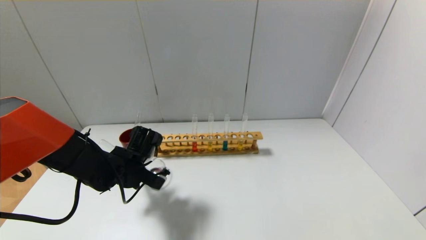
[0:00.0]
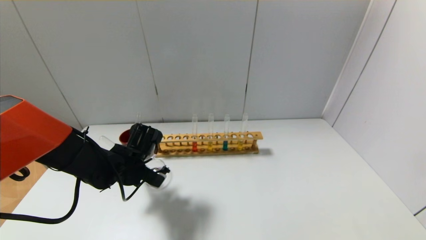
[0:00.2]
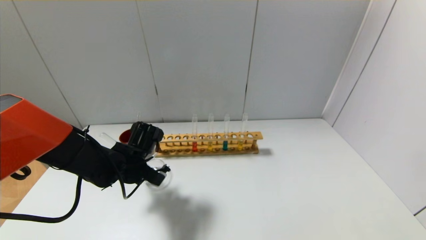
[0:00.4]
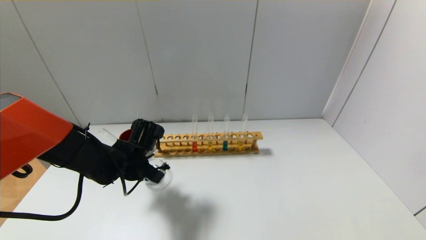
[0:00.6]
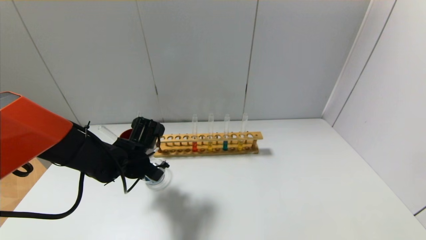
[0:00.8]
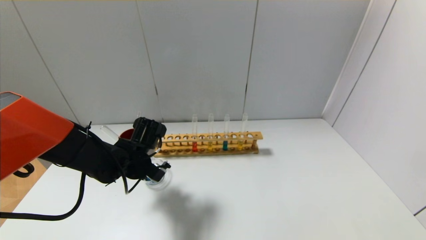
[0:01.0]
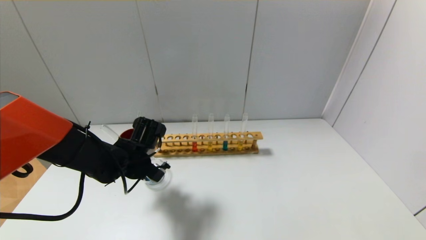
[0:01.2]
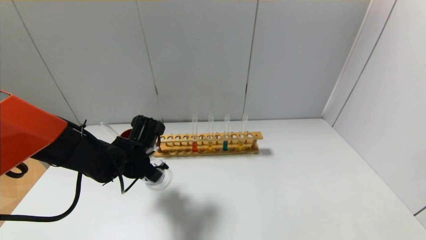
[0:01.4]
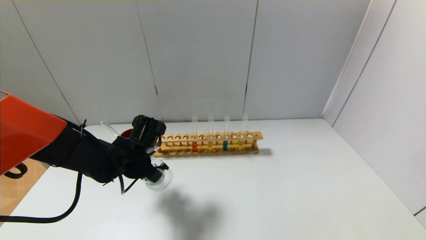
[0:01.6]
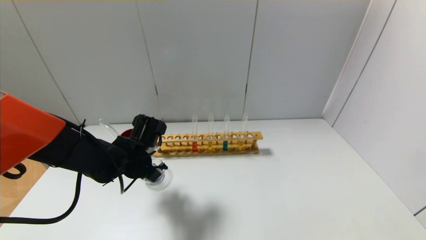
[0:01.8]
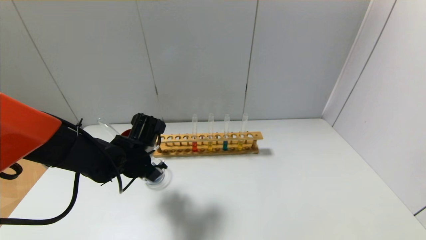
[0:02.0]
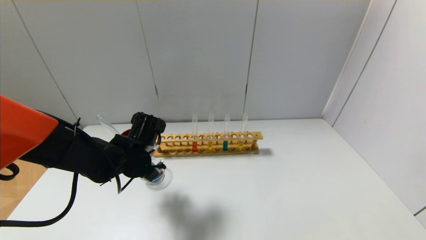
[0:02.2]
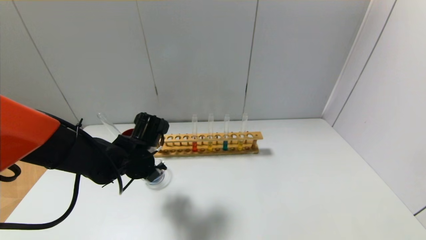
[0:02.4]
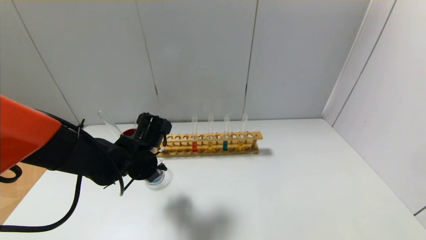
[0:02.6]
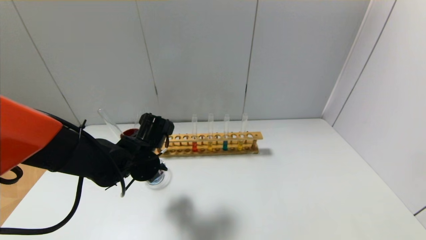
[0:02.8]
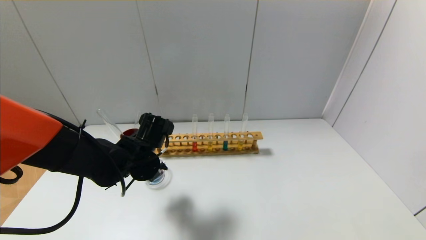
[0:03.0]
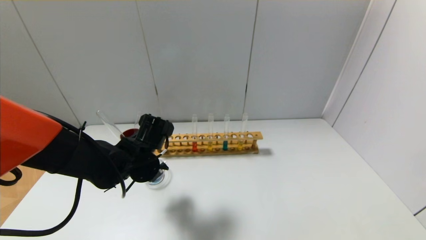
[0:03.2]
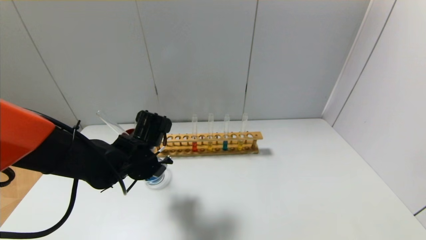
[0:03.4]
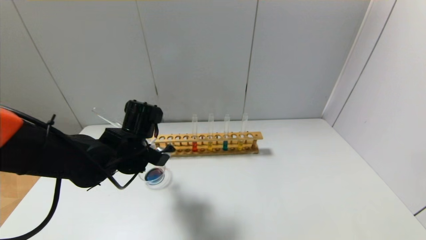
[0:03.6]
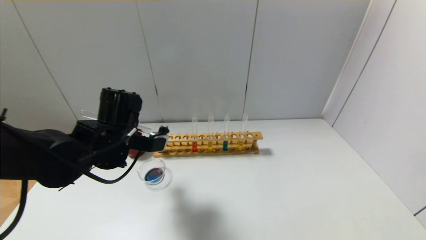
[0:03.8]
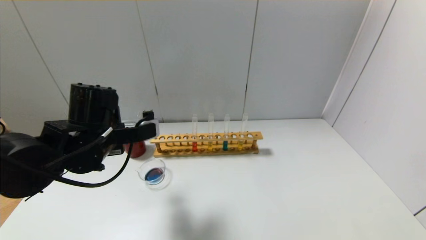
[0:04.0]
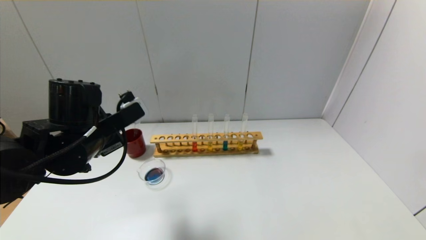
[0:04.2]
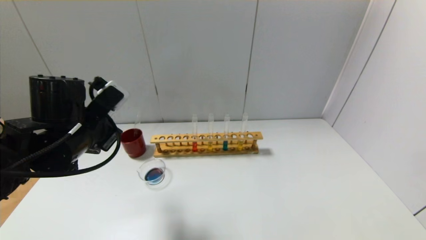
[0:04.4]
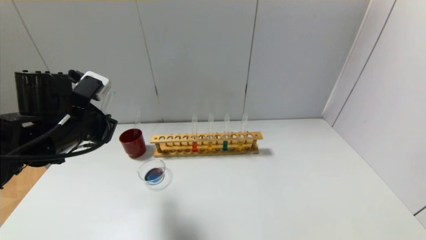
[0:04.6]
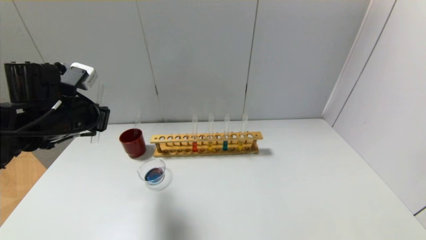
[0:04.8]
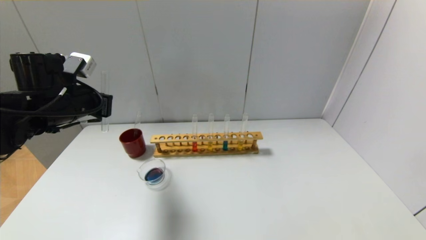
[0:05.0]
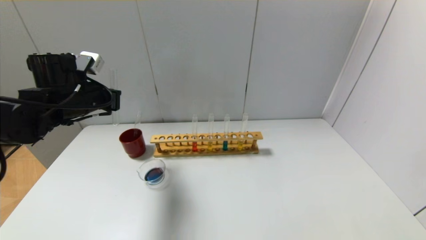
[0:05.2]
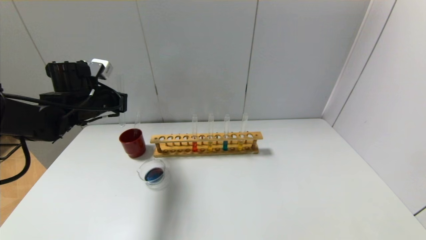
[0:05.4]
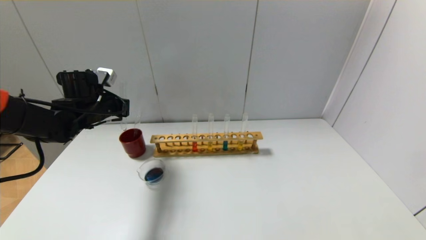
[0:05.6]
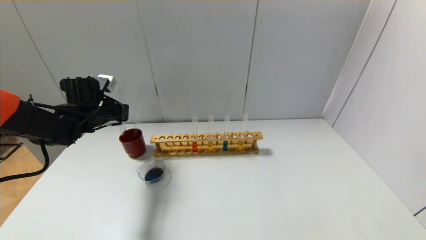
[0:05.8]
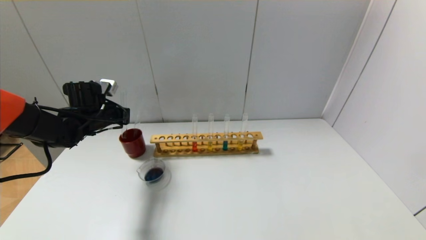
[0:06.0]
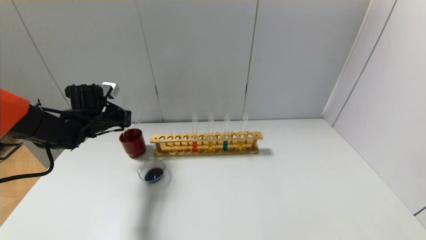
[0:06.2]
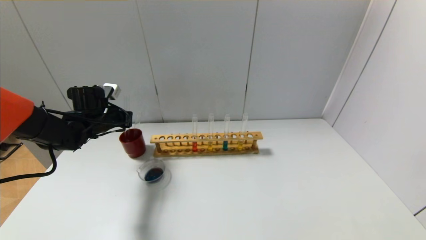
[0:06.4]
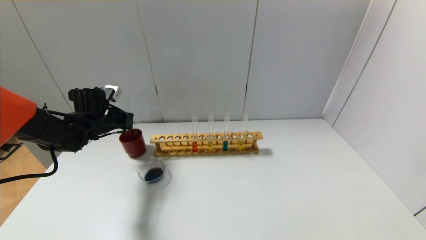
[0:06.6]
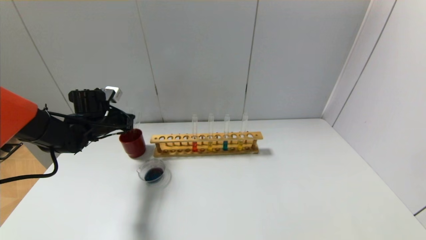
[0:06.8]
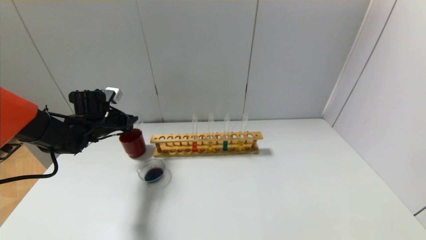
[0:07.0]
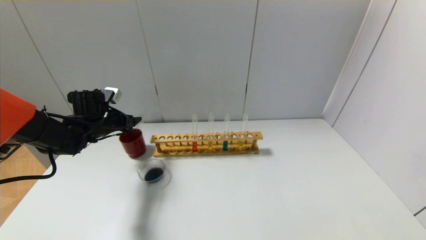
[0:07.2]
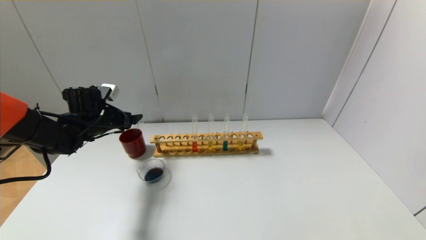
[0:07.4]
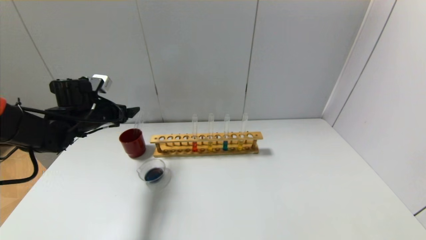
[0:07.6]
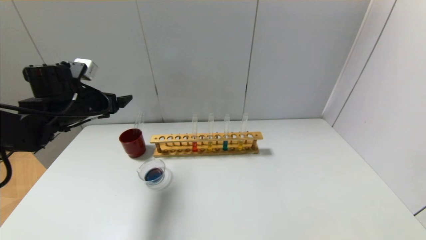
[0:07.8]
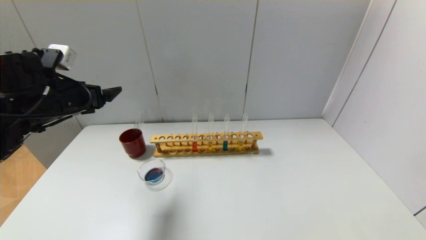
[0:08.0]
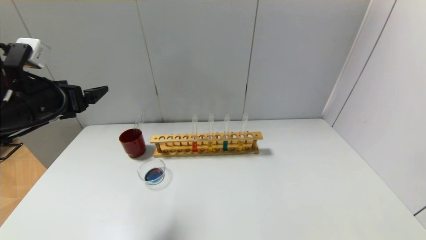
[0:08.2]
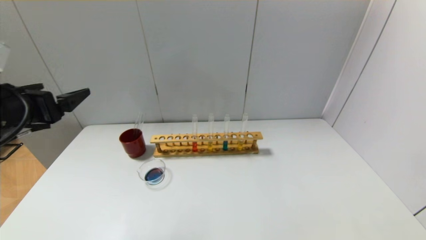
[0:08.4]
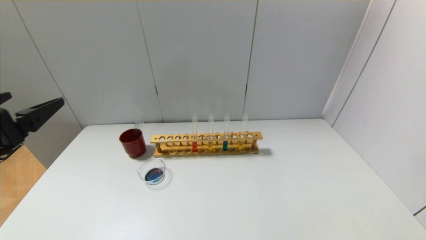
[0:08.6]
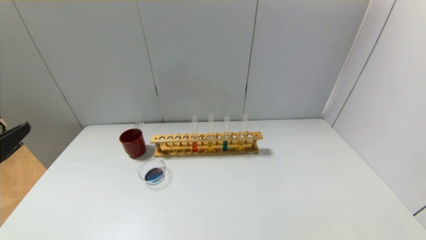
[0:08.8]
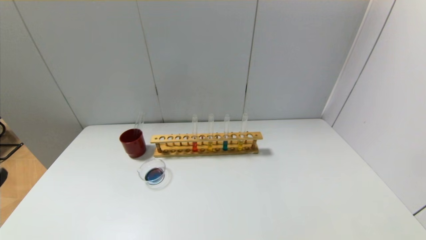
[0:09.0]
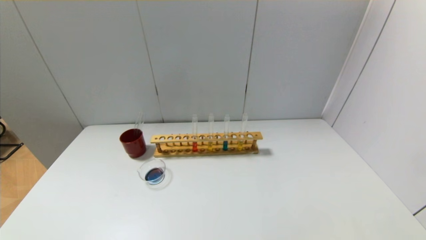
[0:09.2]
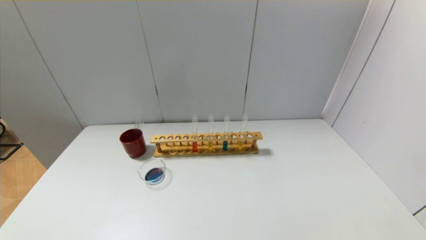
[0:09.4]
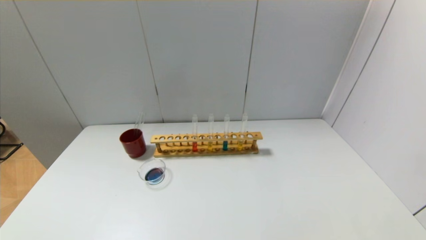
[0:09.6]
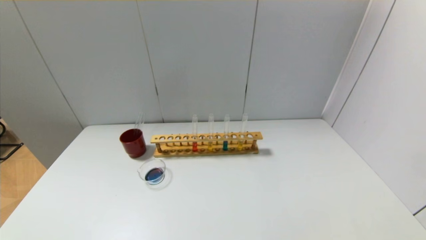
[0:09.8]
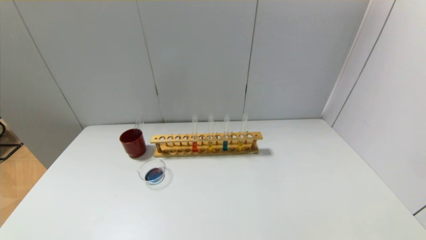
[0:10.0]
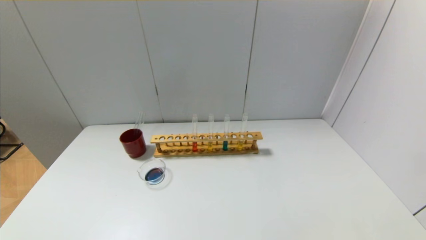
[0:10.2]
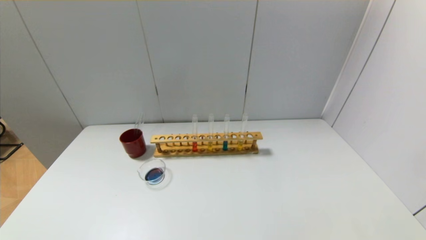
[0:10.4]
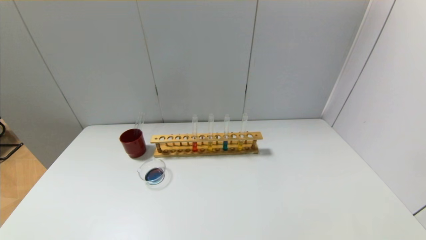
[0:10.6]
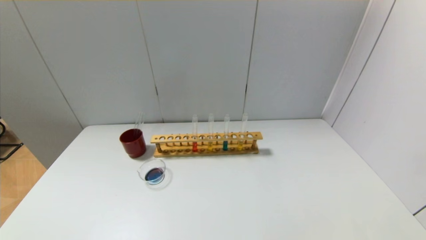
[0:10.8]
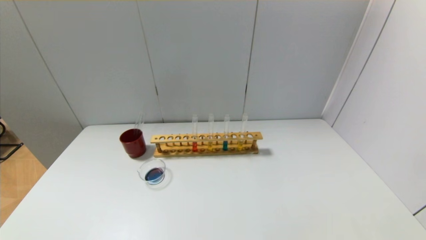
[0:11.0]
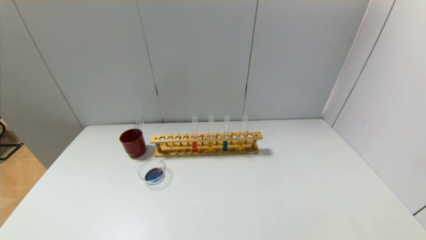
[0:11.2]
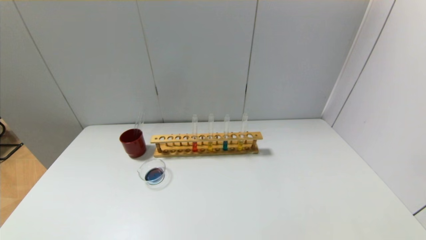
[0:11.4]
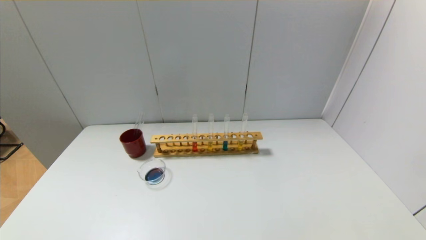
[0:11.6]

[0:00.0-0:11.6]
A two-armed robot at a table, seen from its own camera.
Step, 0:00.0 to 0:03.6: Pour the blue reagent into the graduated cylinder with the left gripper.
Step, 0:03.8 to 0:07.0: Place the test tube into the brown cup with the left gripper.
0:00.0 to 0:01.4: The grippers stay close to where they were, moving slightly.
0:01.4 to 0:02.8: The grippers move only a little.
0:02.8 to 0:04.4: The left gripper goes roughly 15 cm upward, to the left and backward.
0:04.4 to 0:05.8: The left gripper heads forward and to the left, covering approximately 15 cm.
0:05.8 to 0:07.2: The left gripper opens.
0:07.2 to 0:08.8: The left gripper travels backward by some 35 cm.

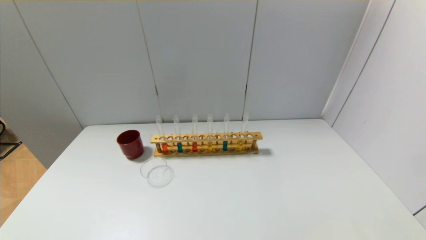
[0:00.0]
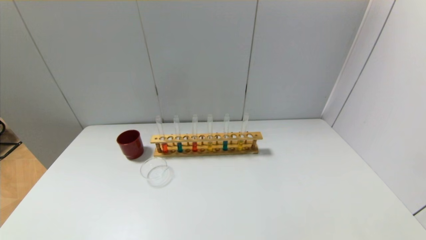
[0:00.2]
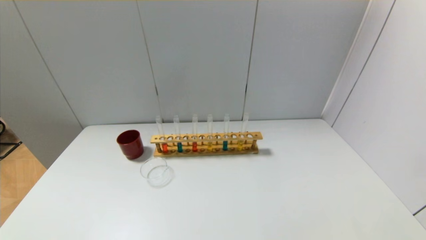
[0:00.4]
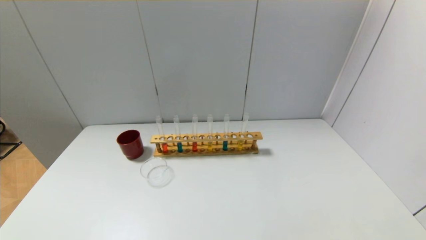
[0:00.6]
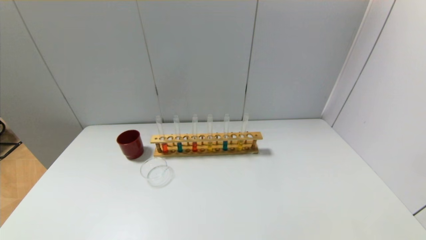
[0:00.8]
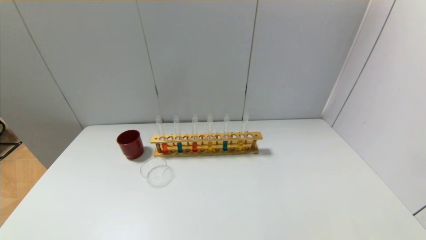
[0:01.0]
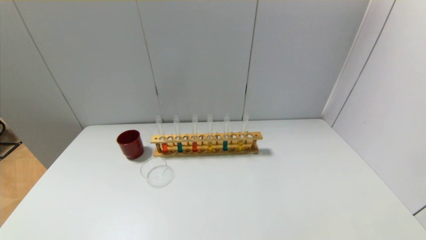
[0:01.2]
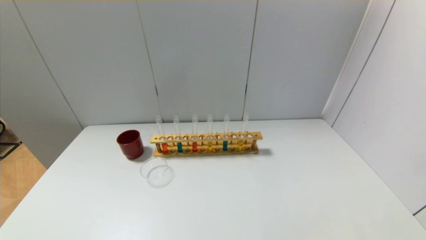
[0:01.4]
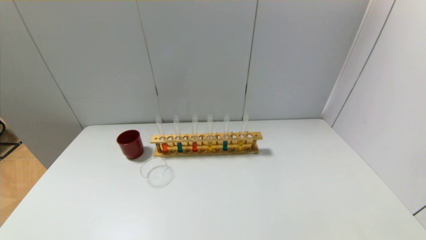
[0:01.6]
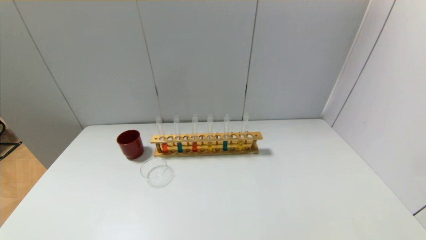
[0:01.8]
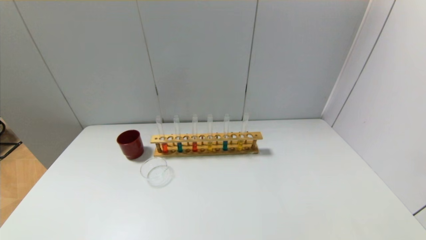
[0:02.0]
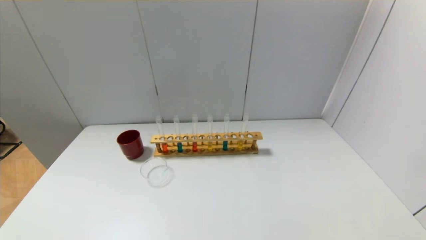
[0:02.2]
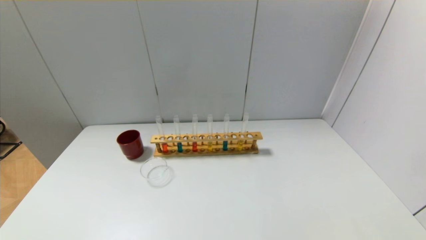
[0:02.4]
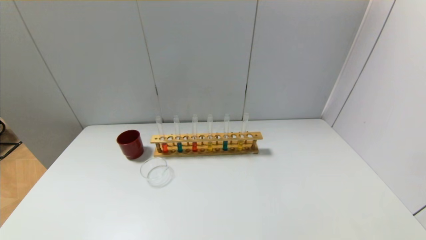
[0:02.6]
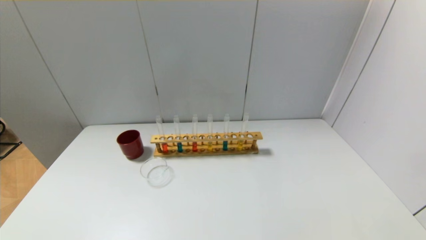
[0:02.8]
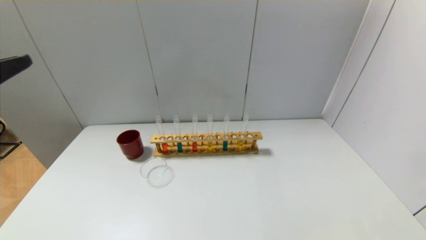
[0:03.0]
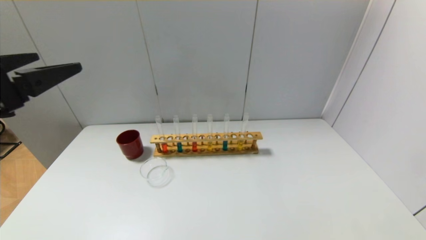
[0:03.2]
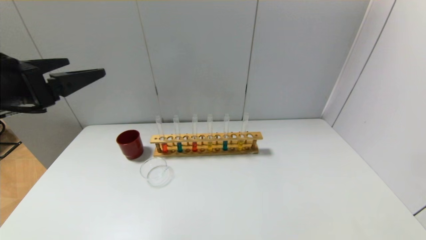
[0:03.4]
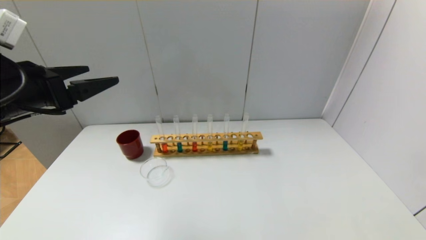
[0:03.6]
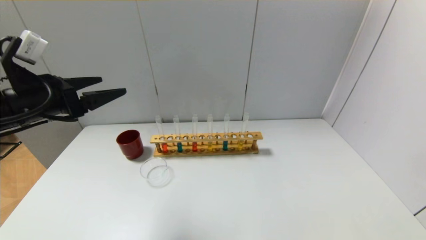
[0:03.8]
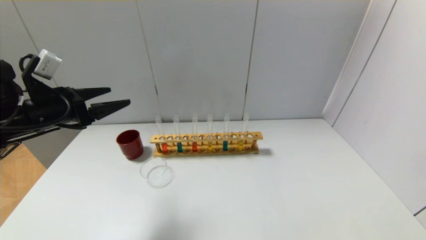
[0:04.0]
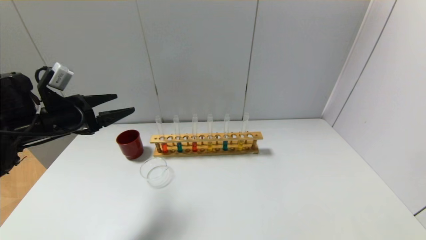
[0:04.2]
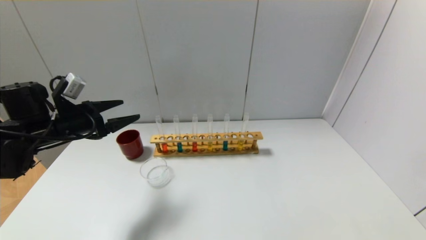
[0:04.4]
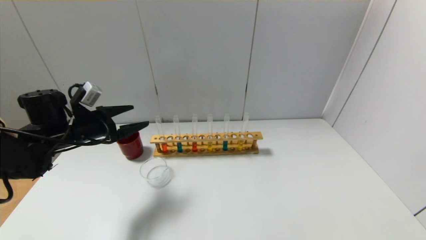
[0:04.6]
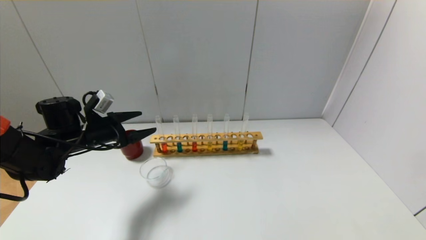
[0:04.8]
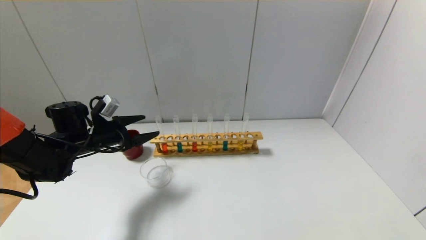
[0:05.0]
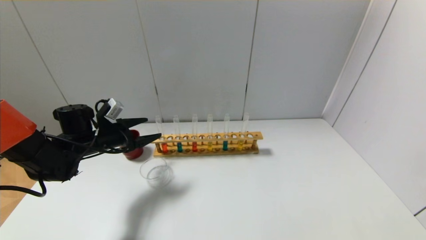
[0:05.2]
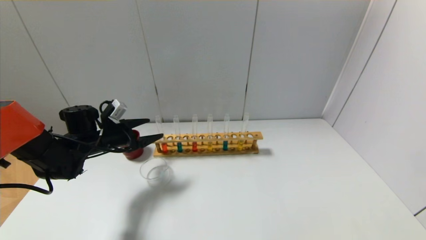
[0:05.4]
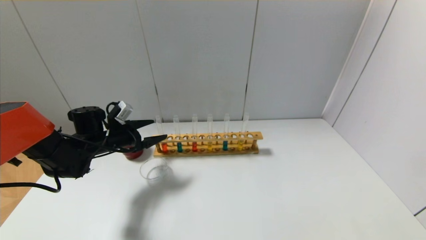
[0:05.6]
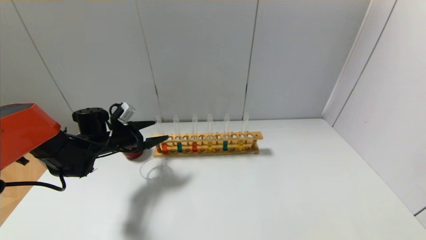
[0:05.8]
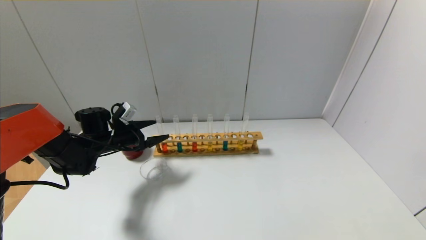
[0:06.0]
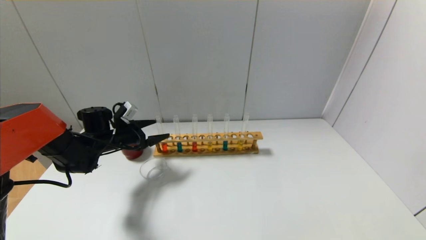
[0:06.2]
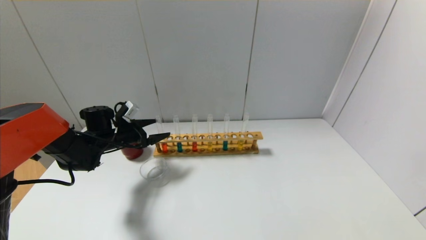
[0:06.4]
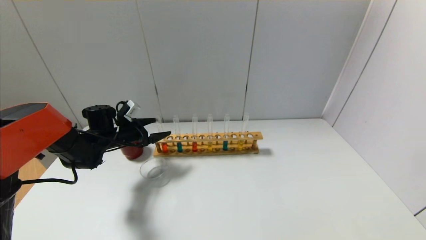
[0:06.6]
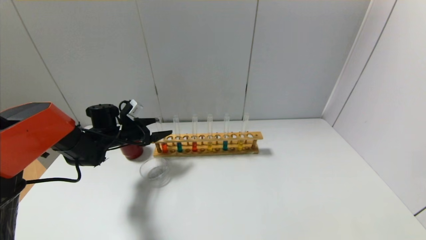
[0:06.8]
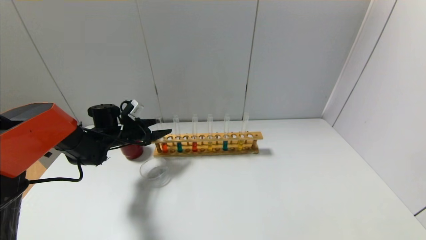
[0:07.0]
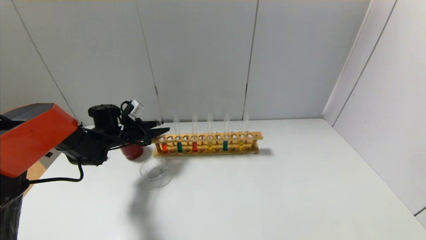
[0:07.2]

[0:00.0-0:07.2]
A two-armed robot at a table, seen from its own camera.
0:00.0 to 0:01.4: Both grippers stay about where they are.
0:02.8 to 0:04.4: The left gripper is displaced forward and downward by approximately 30 cm.
0:04.4 to 0:05.8: The left gripper shifts about 10 cm downward and forward.
0:05.8 to 0:07.2: The left gripper closes.
